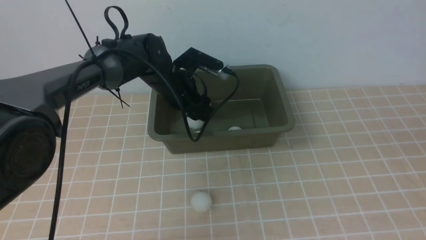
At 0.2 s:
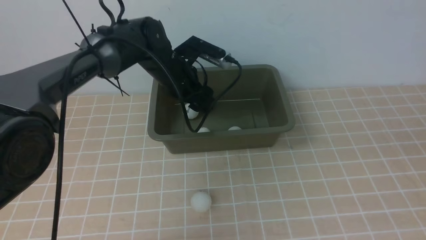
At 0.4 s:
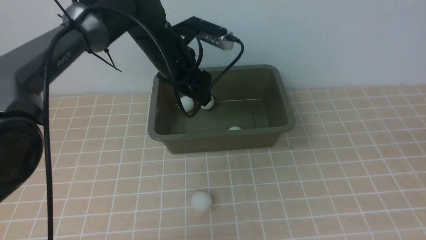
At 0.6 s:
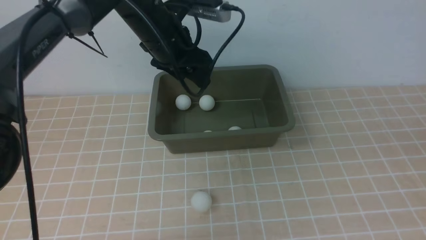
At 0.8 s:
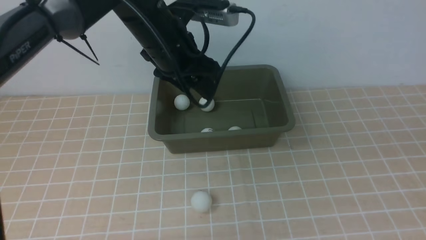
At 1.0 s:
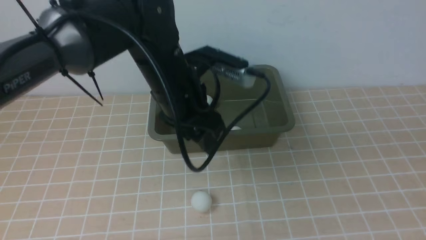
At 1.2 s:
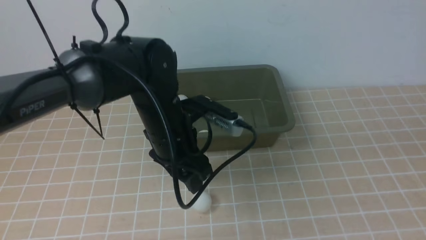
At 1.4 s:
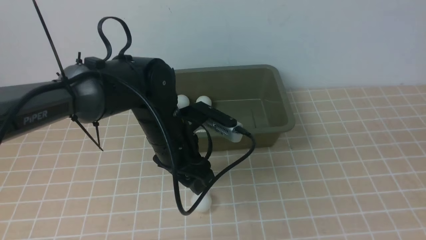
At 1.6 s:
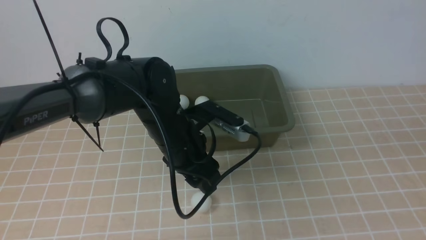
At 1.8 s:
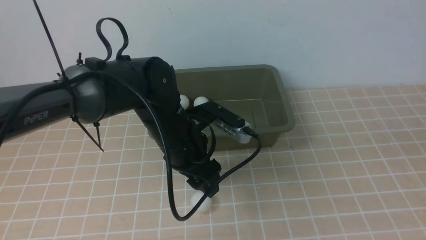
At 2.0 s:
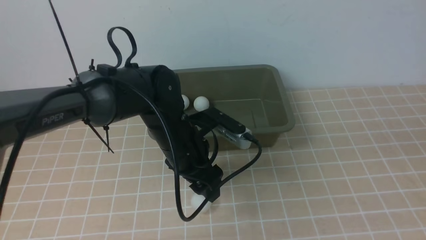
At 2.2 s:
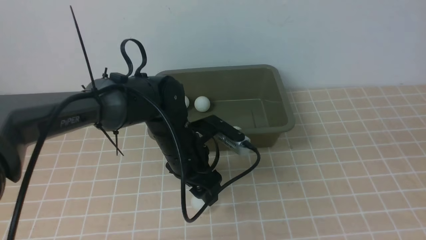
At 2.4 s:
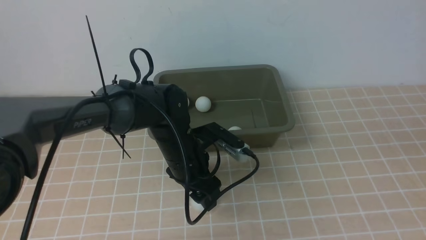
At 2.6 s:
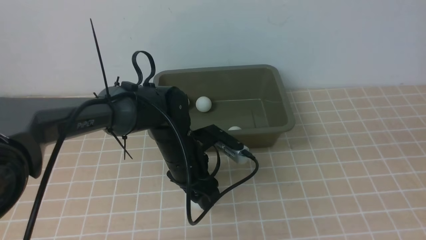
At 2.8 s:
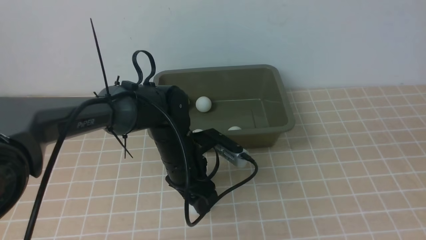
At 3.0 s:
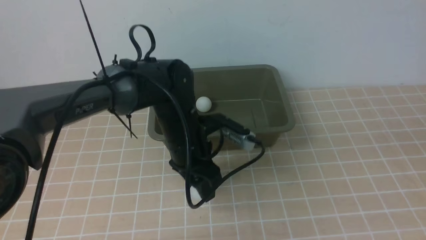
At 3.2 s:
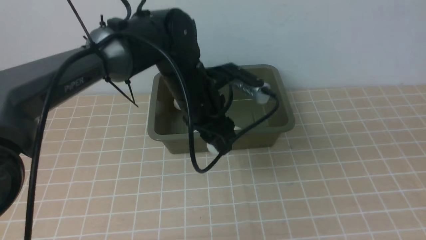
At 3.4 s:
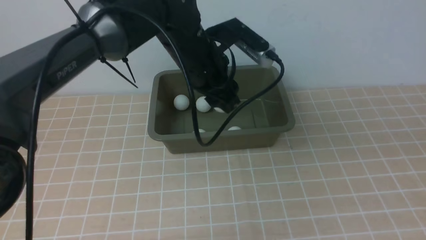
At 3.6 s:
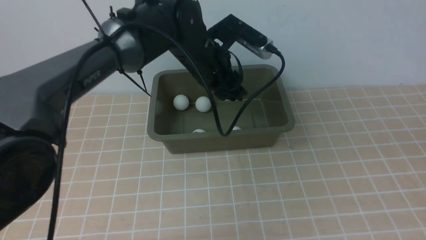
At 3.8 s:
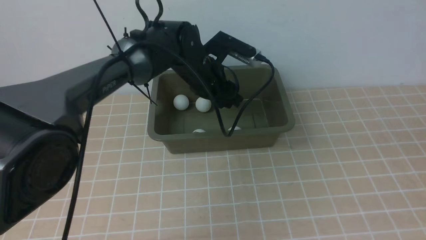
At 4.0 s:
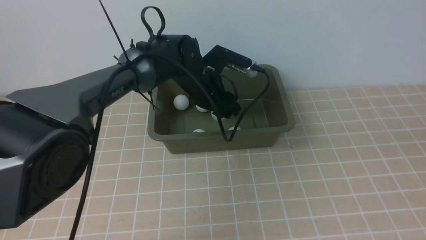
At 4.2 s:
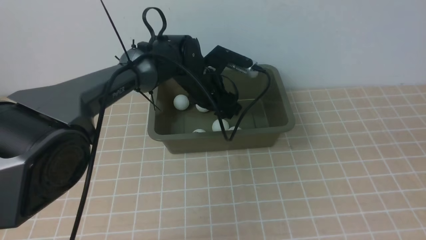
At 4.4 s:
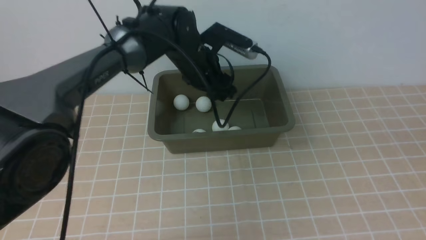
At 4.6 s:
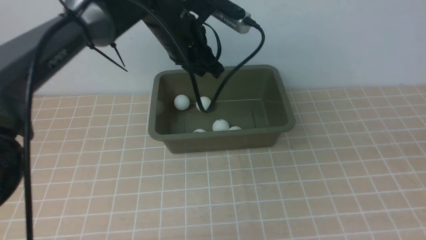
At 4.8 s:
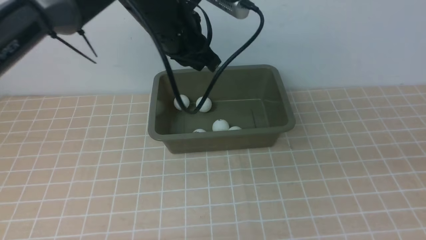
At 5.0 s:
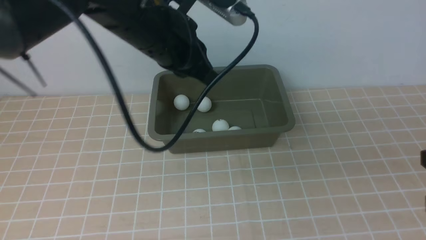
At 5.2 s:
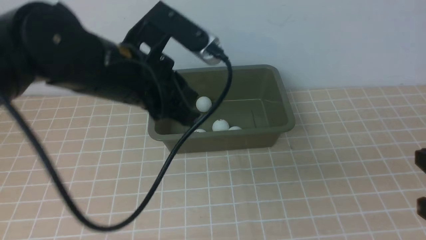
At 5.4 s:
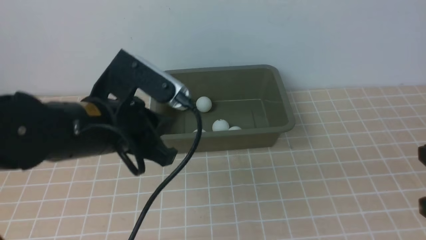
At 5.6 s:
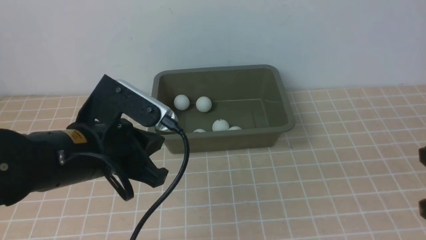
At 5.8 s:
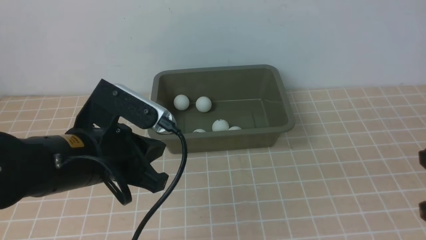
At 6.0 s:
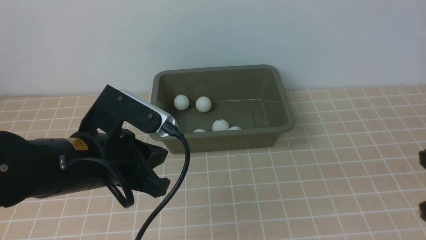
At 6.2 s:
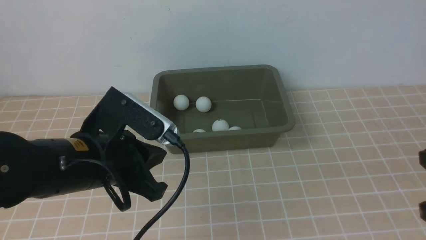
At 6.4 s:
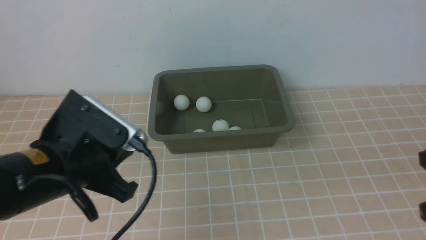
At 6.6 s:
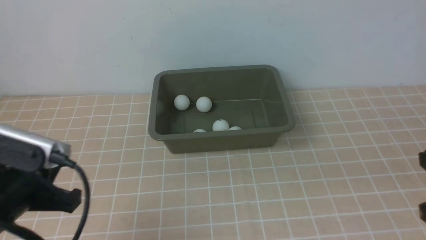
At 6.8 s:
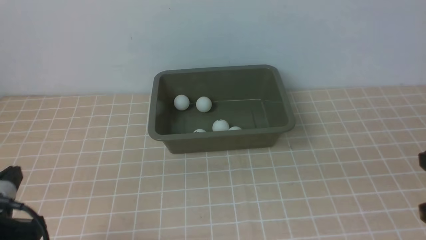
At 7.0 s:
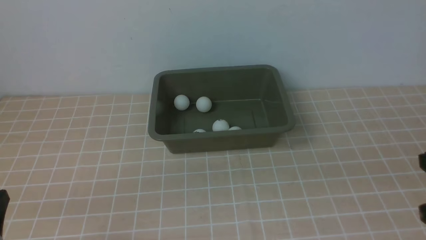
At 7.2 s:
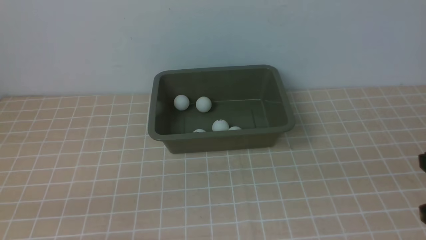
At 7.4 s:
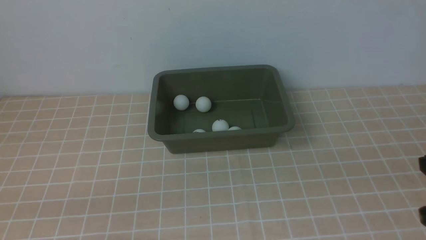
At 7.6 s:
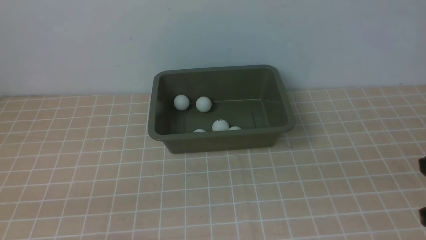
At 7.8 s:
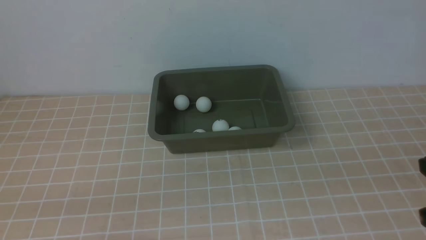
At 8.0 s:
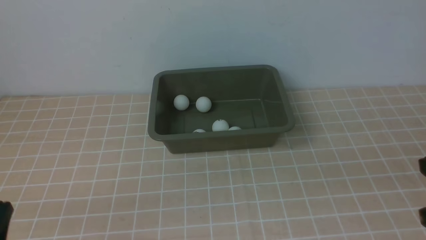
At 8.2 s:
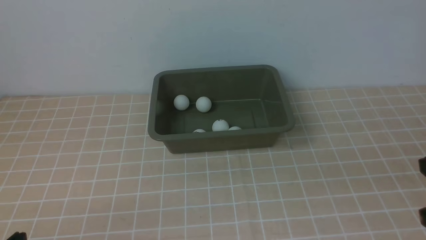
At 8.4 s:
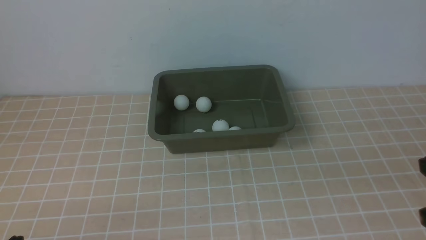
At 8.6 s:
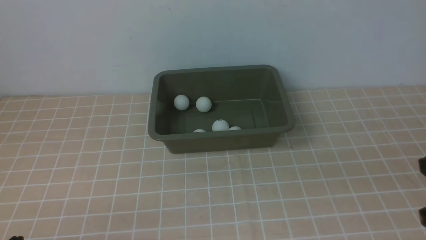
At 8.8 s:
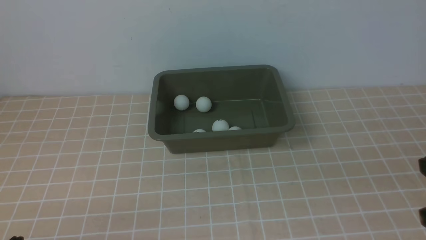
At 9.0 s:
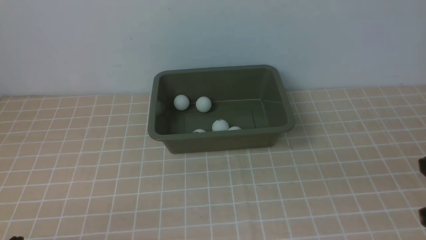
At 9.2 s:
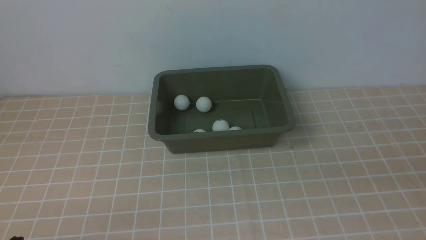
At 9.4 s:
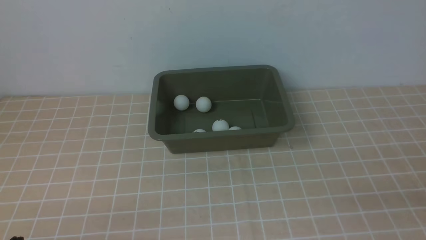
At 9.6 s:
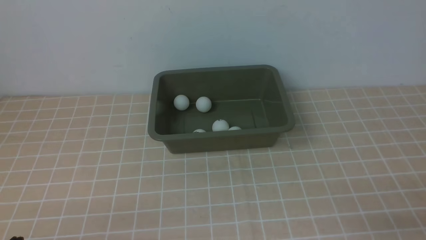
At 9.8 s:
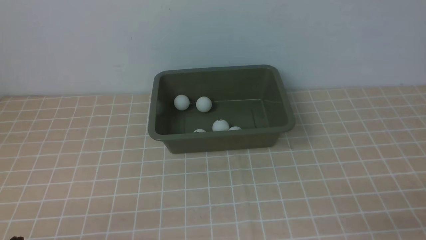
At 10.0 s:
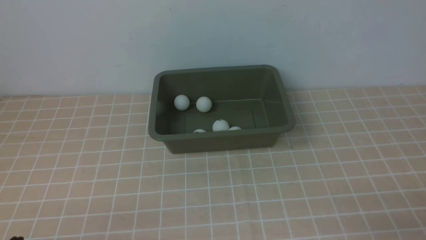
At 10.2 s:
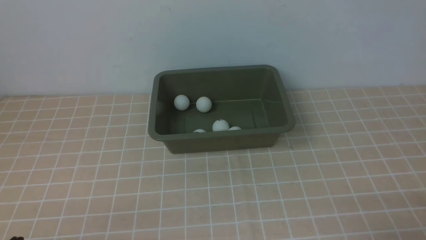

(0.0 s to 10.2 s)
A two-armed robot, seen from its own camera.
Step, 0.4 s - 3.0 s: use the left arm to clamp the table tennis ball closest to it.
Step, 3.4 s - 4.4 s: use the left arm to put the table tennis ball into the box.
0.0 s - 1.4 s: The left gripper travels backward by roughly 15 cm.
3.0 s - 4.4 s: The left gripper moves forward and upward, some 10 cm.
4.4 s - 5.8 s: The left gripper is displaced backward and to the left by some 25 cm, and closes. Meanwhile the right gripper heads downward and forward, covering about 15 cm.
5.8 s - 7.2 s: The left gripper travels backward, to the left and downward by roughly 20 cm.

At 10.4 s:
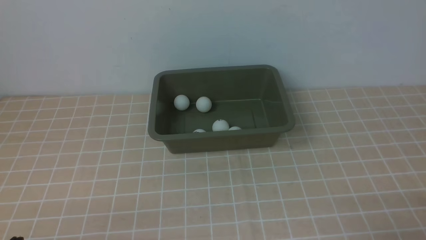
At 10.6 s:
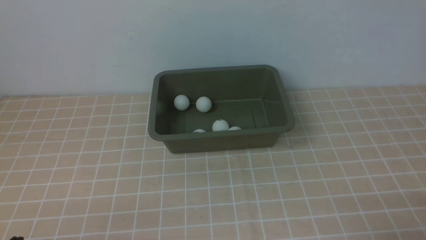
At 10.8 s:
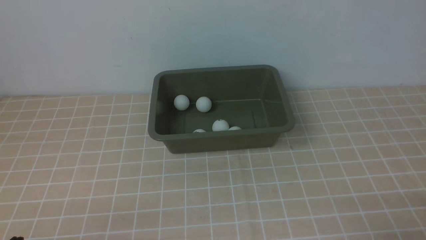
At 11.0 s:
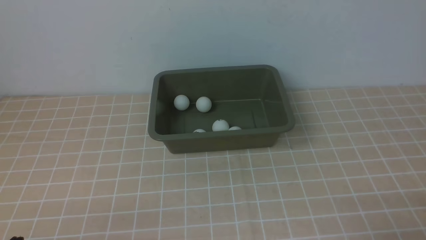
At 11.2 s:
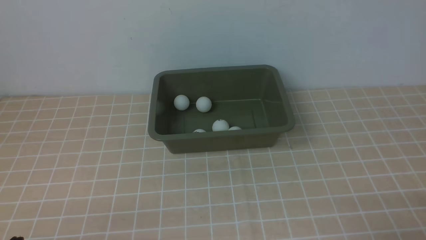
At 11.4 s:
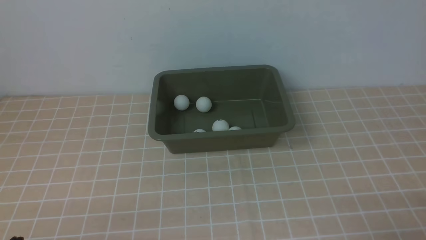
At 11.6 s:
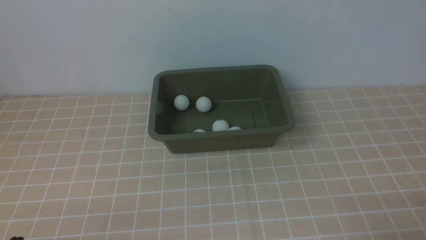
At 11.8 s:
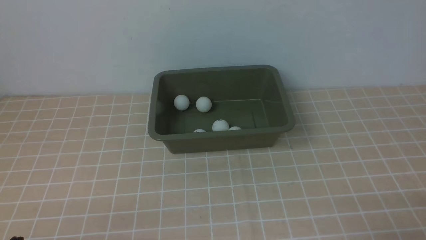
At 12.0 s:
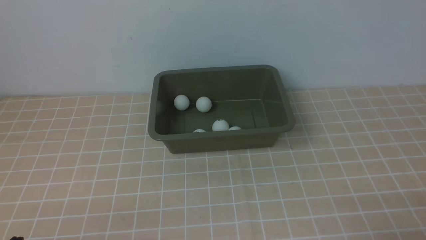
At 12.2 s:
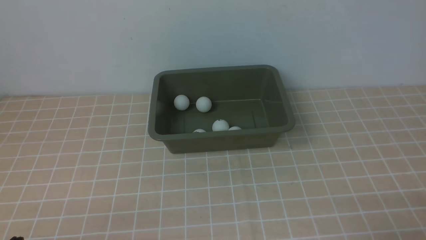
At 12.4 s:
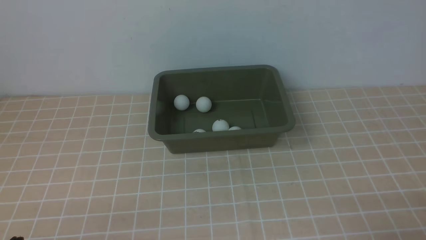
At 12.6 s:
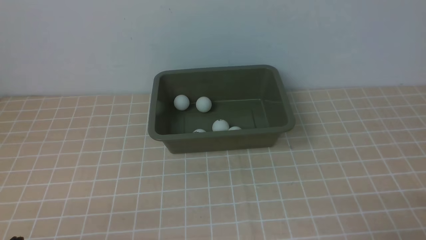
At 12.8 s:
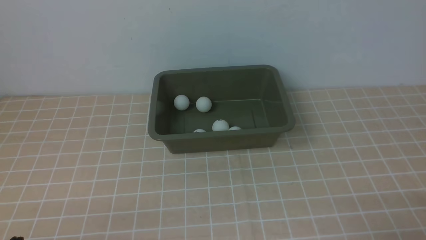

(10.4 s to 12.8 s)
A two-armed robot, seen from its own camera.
10.4 s - 12.8 s: Neither gripper changes place.
